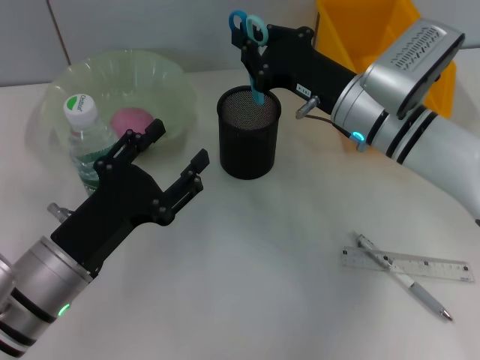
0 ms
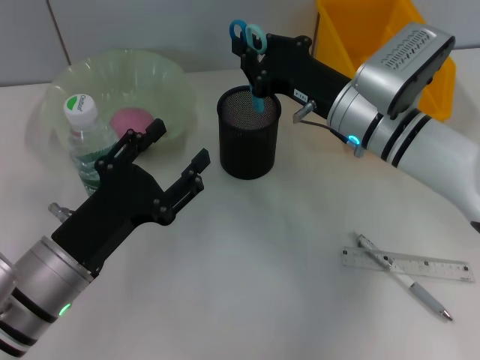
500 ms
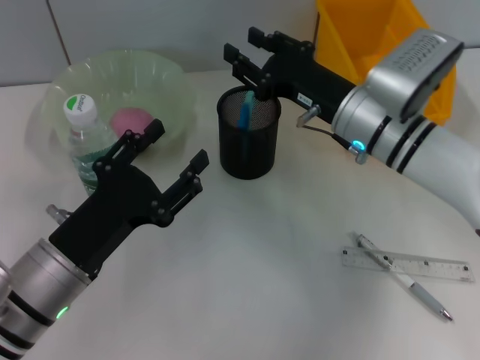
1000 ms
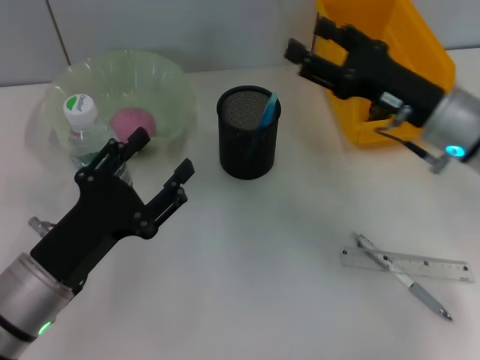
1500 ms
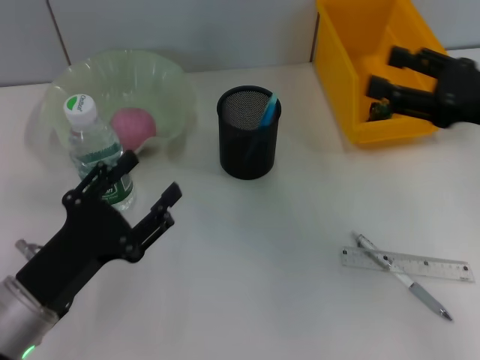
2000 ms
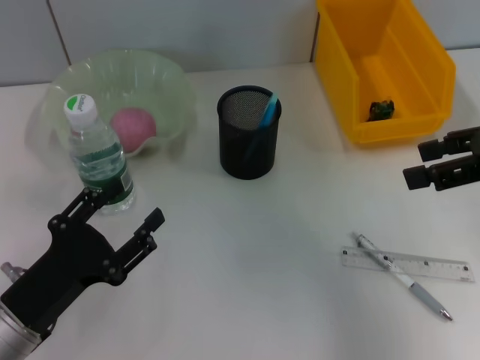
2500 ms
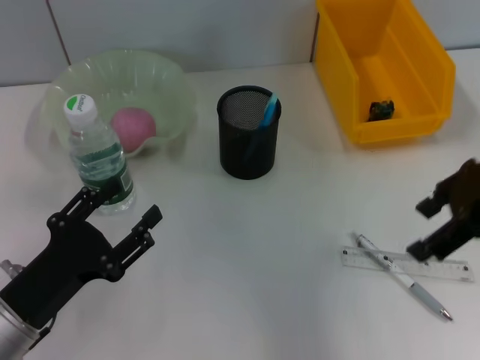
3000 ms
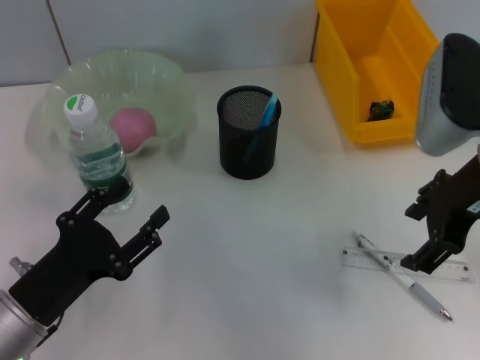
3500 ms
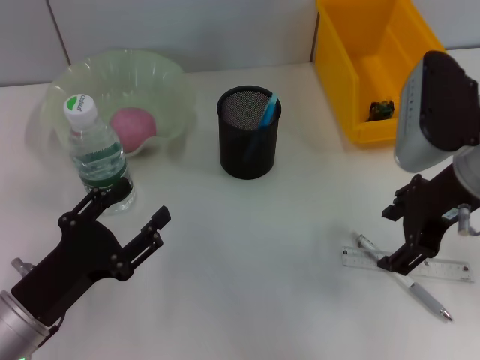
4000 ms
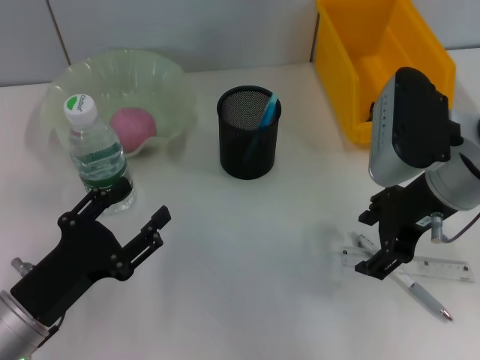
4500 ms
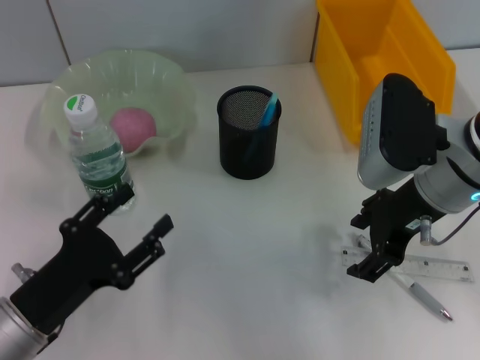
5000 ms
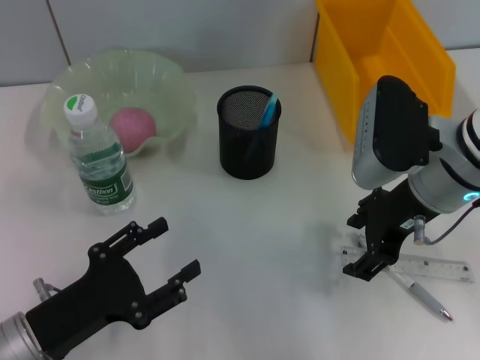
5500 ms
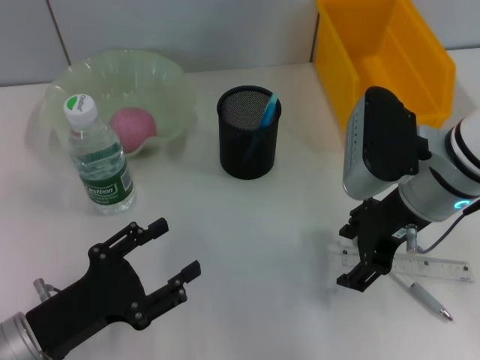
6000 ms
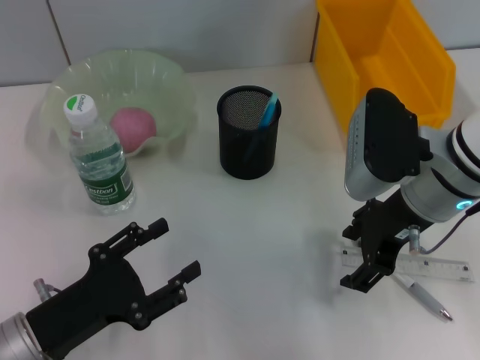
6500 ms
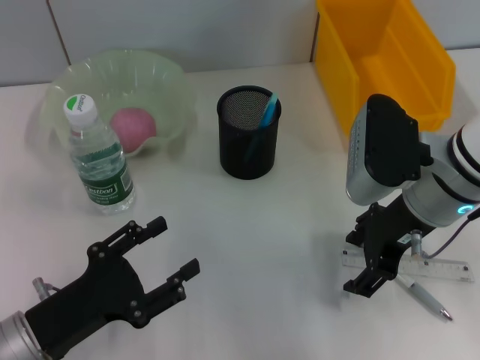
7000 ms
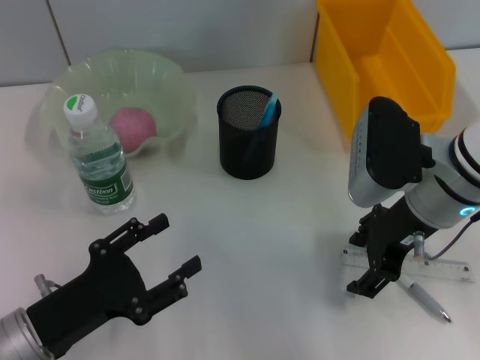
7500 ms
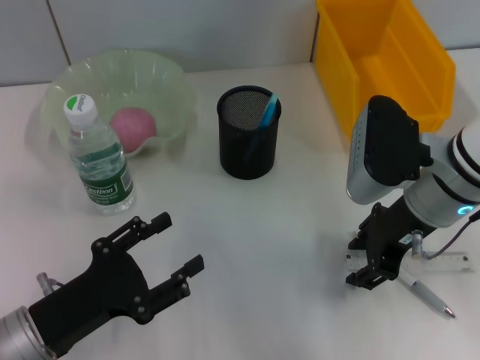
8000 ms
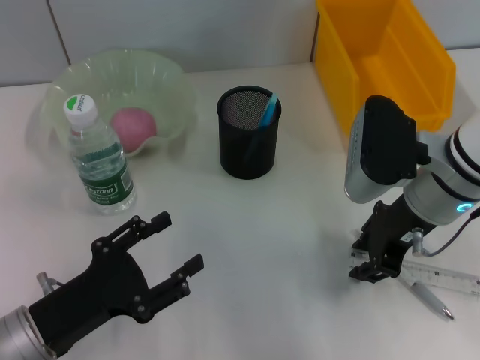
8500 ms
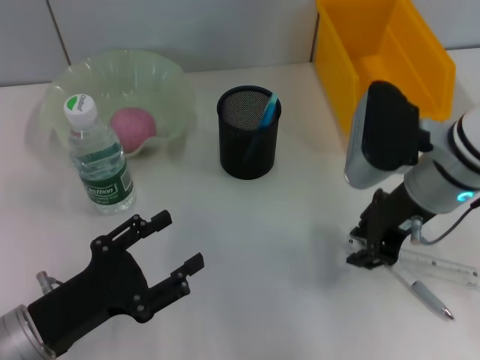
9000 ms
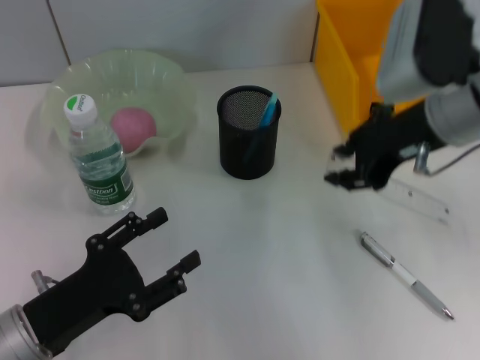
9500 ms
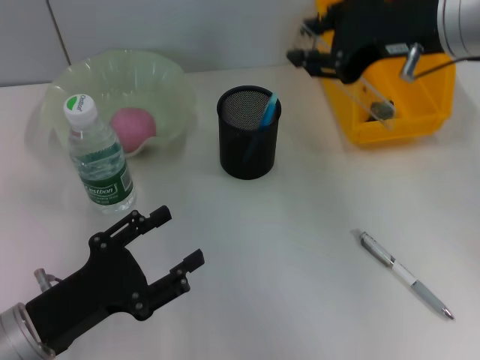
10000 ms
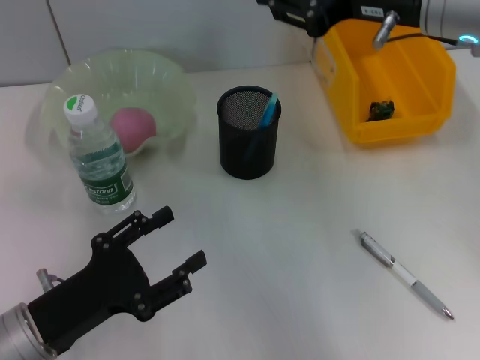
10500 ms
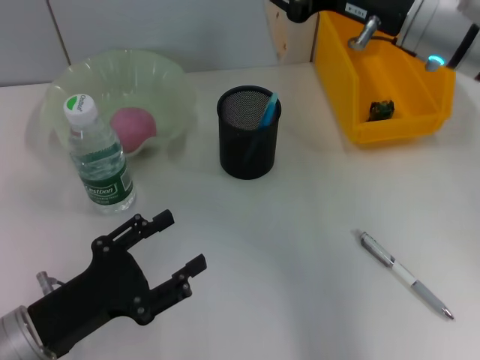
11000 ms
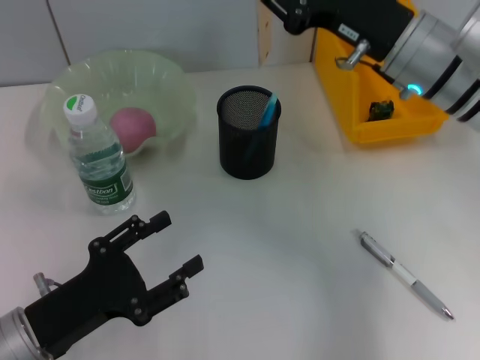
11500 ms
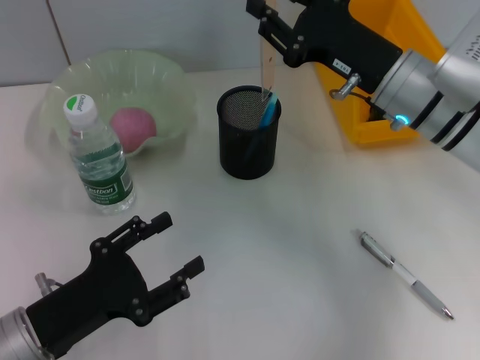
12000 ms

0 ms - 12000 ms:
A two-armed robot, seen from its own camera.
Step, 1500 ms - 8500 ms: Grab the ruler with the left hand.
0 ms - 2000 ms: The right gripper goes roughly 20 cm to the right and backward, and opens.
2000 ms - 4000 ms: The right gripper moves to the left, roughly 10 cm.
6000 ms - 8000 ms: Both grippers stay put.
8000 ms - 10000 ms: The right gripper is displaced upward by about 15 cm.
10000 ms - 12000 ms: The right gripper goes roughly 15 cm downward.

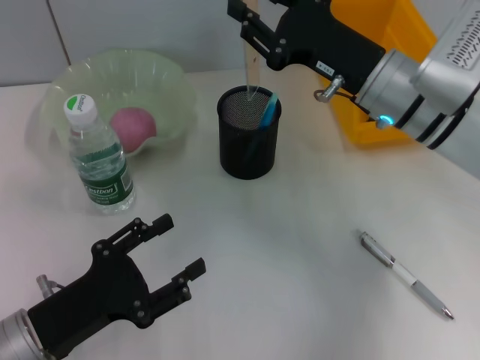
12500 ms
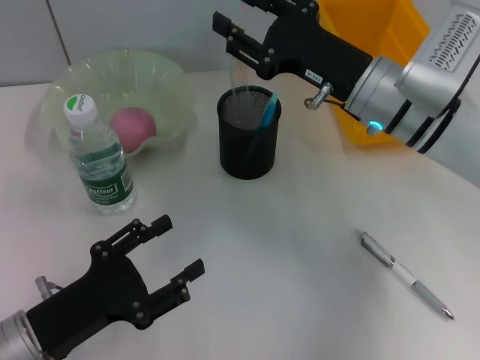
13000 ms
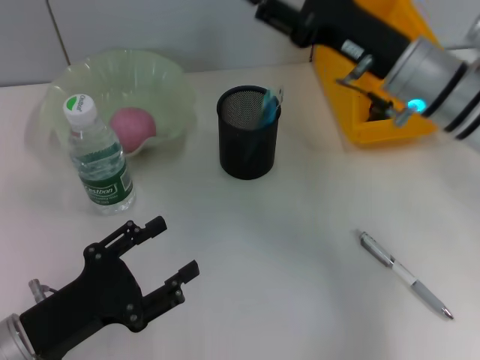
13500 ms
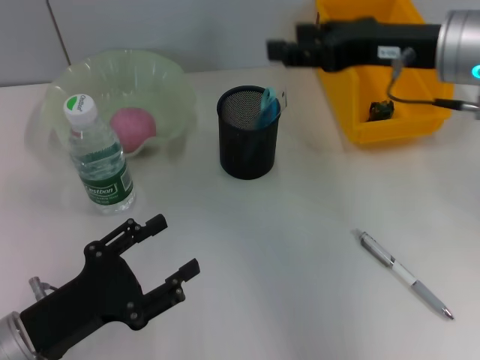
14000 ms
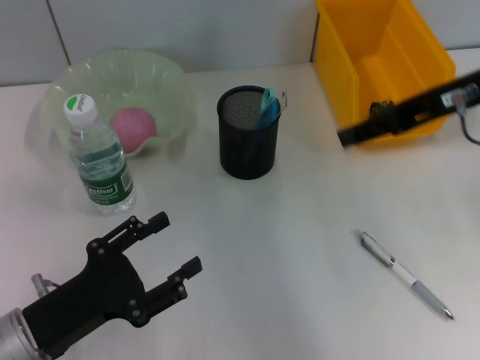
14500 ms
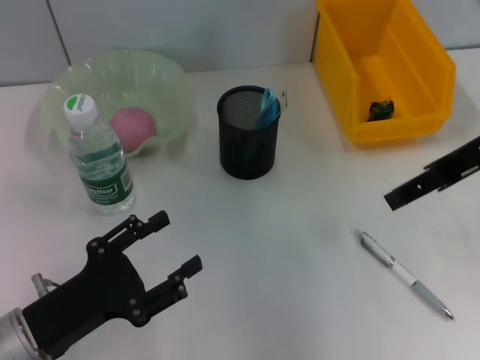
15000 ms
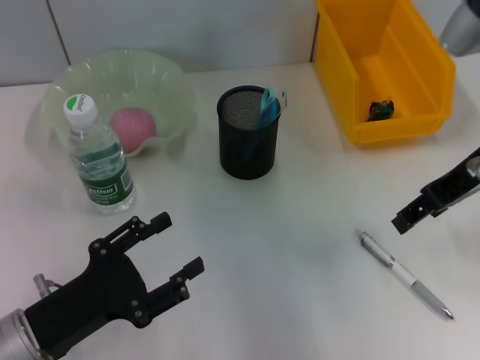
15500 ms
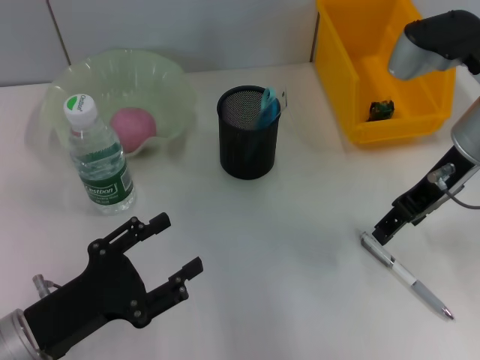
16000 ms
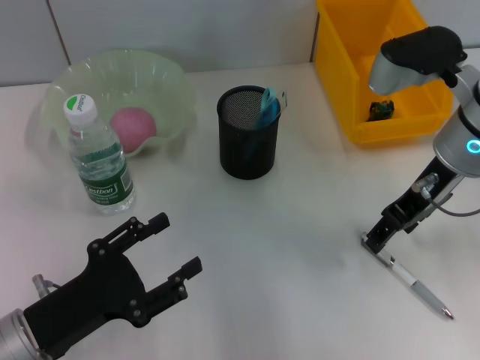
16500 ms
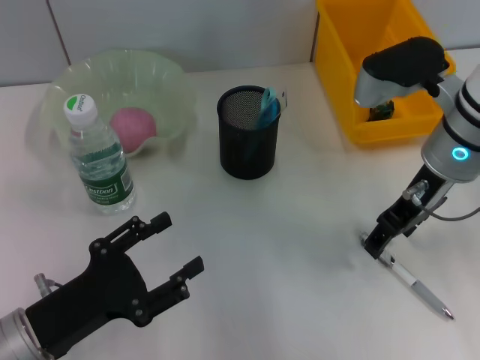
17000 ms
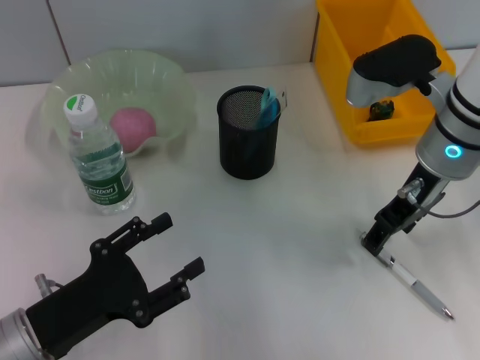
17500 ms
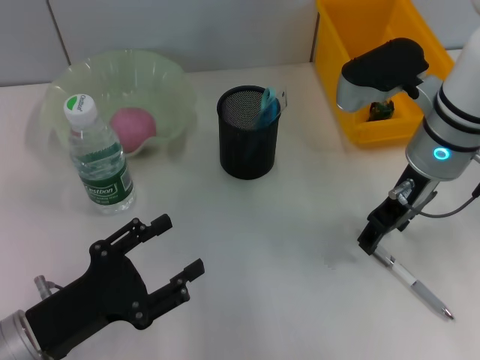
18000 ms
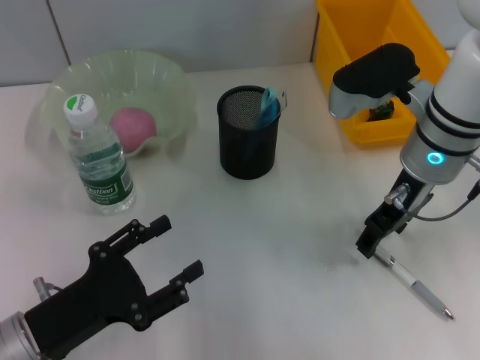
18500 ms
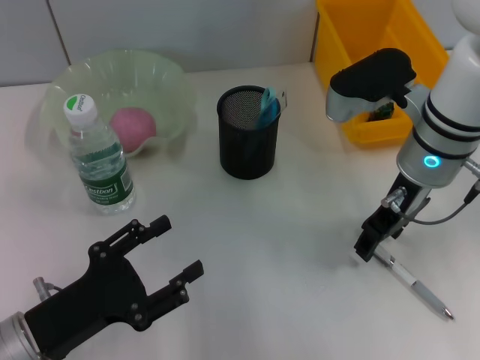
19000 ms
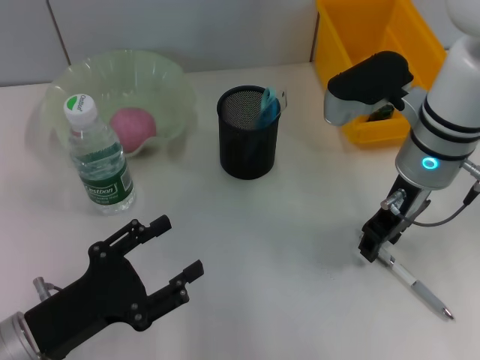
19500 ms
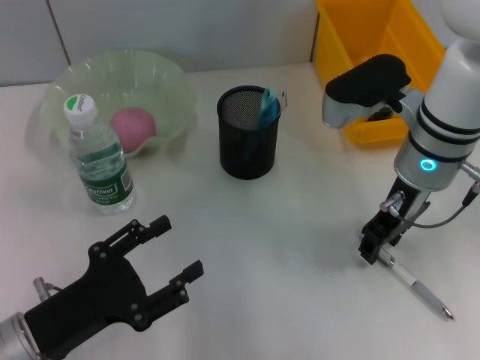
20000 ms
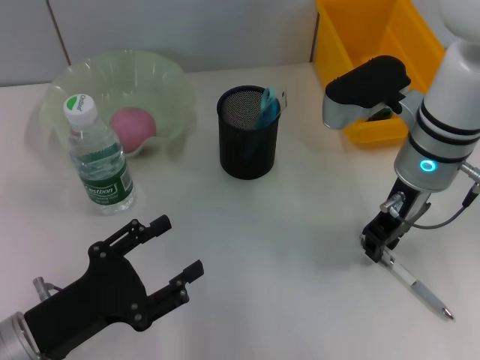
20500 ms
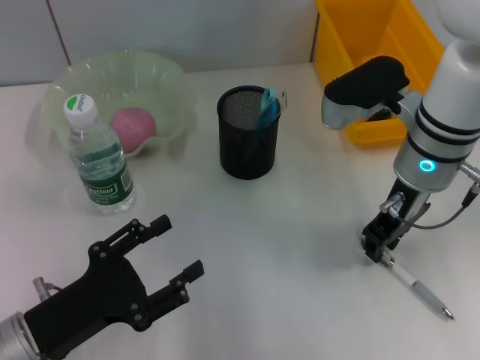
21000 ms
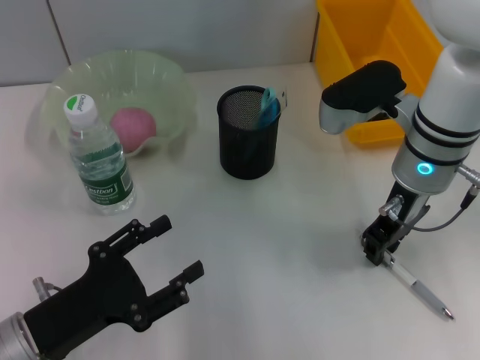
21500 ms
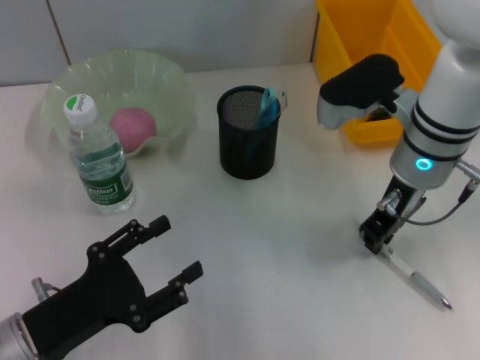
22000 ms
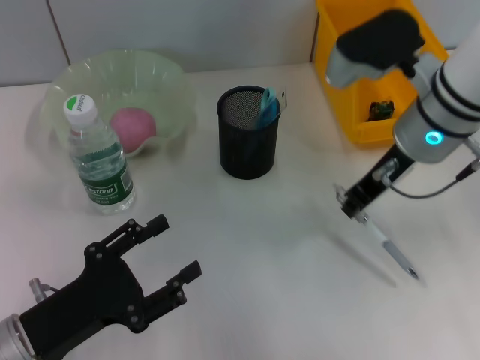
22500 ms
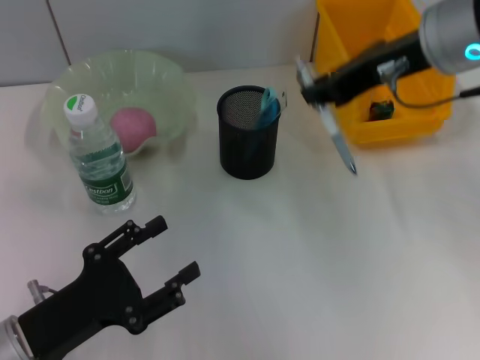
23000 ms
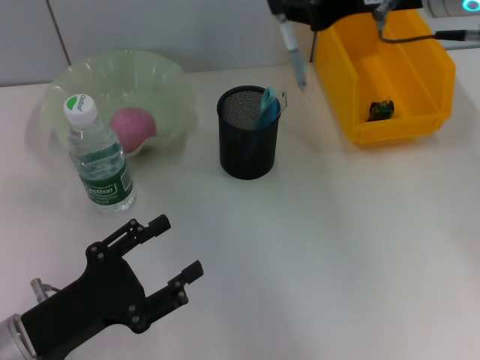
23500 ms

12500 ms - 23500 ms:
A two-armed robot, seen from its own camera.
Step, 13500 ms - 21500 ms: Grab the gray spring-action pen with the right hand.
12500 ms - 14500 ms: The right gripper heads upward and to the right, covering approximately 15 cm, and opens.
14500 ms - 16000 ms: The right gripper goes some 5 cm downward.
16000 ms - 18000 ms: The right gripper ends up about 5 cm from where it was.
18000 ms - 20000 ms: The grippers stay close to where they were, moving slightly.
20000 ms - 21500 ms: Neither gripper changes place.
21500 ms - 23500 ms: The right gripper moves upward, roughly 15 cm.

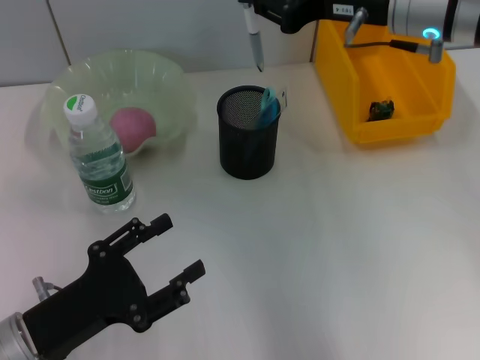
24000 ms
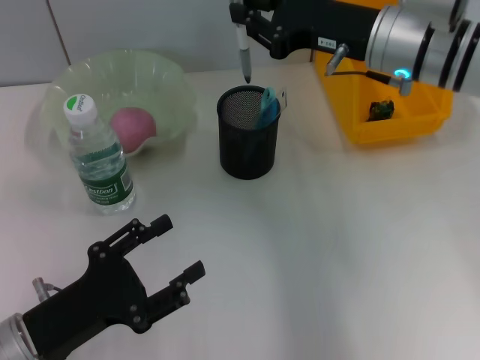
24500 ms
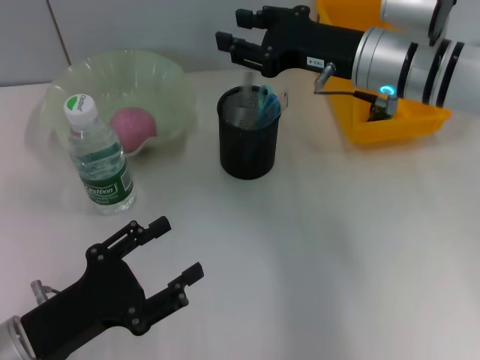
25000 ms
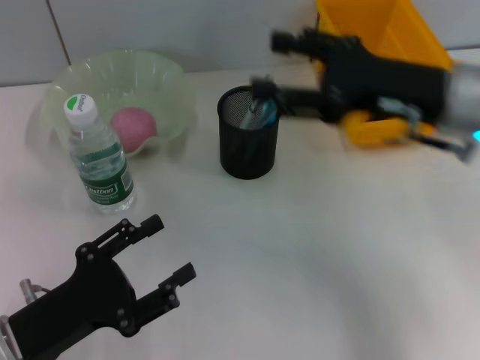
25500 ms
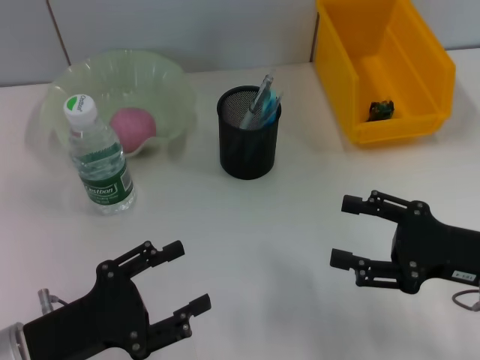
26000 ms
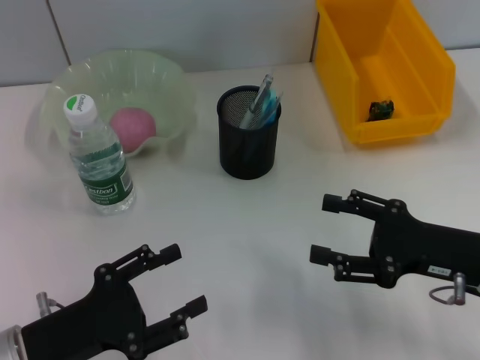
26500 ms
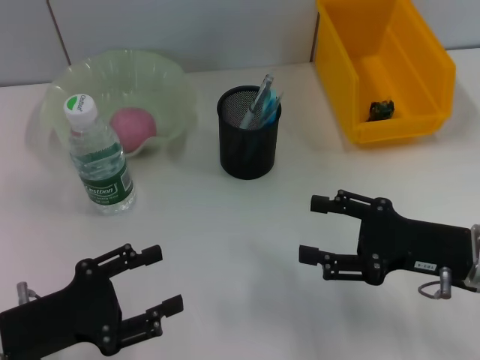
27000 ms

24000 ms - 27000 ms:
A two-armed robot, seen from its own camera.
24000 ms - 25500 ms: The right gripper is displaced backward and downward by approximately 10 cm, and opens up.
25500 ms - 27000 ms: The right gripper moves downward and backward, about 15 cm.
